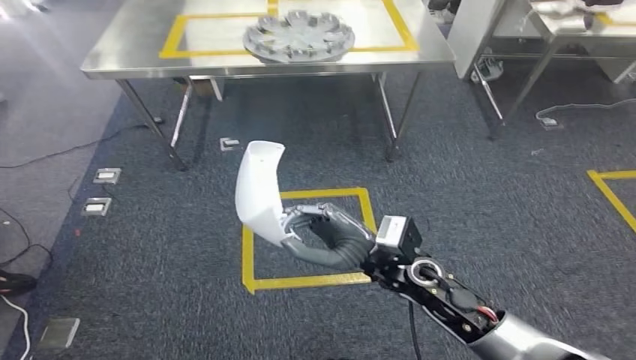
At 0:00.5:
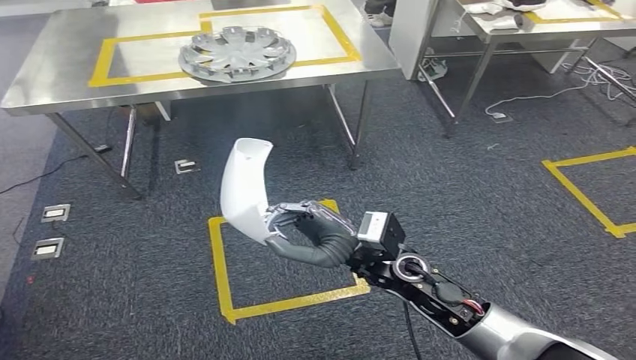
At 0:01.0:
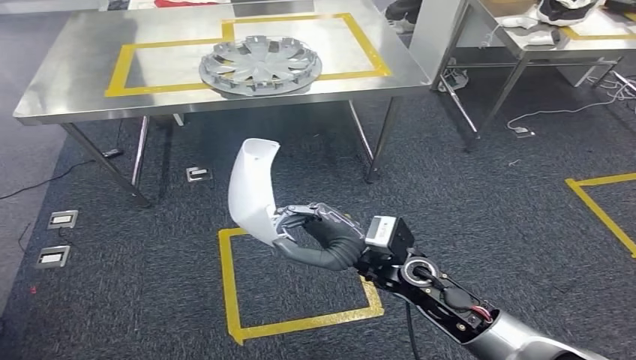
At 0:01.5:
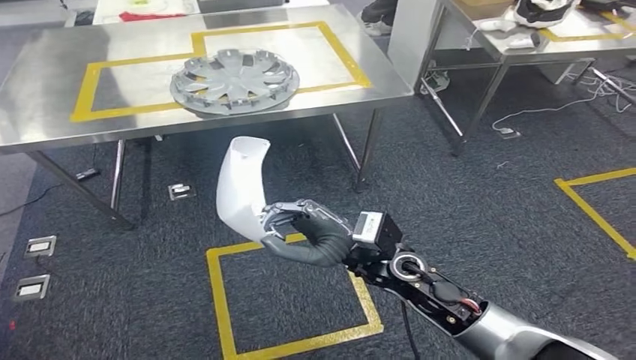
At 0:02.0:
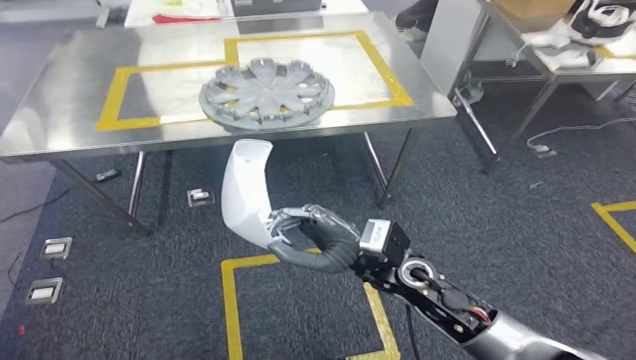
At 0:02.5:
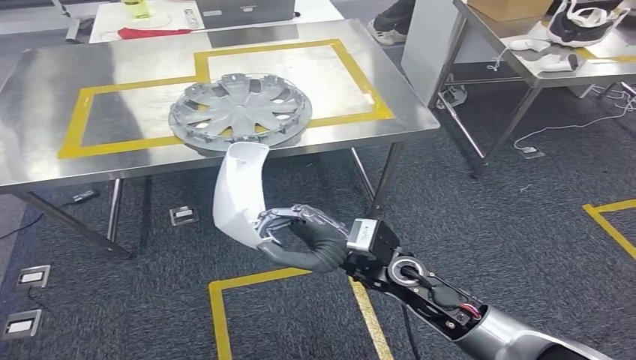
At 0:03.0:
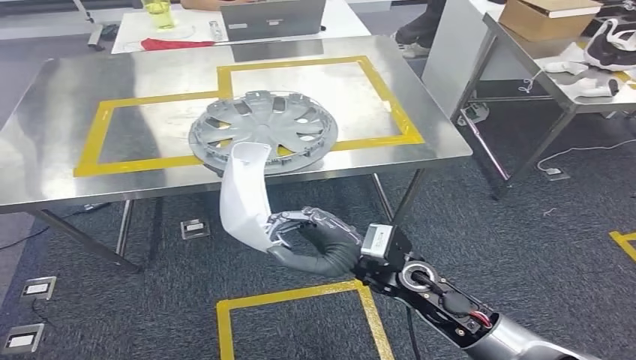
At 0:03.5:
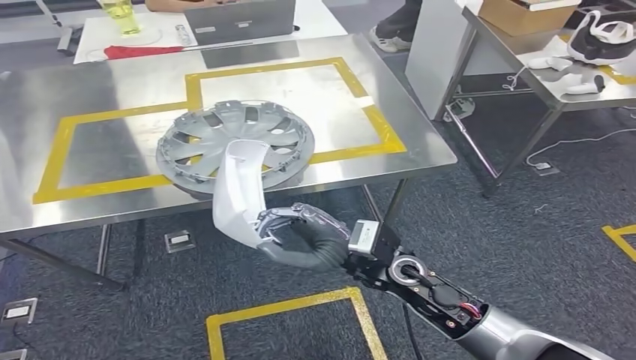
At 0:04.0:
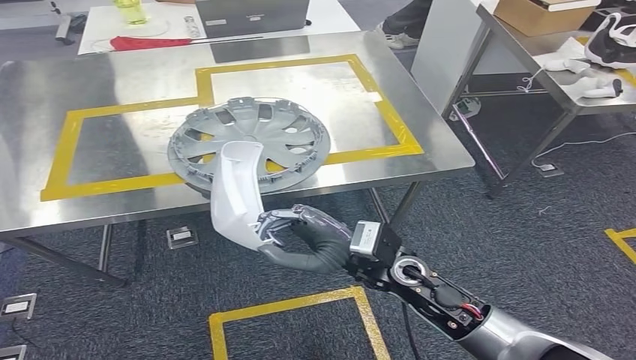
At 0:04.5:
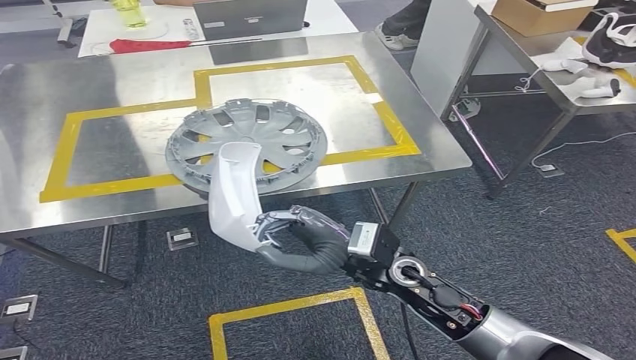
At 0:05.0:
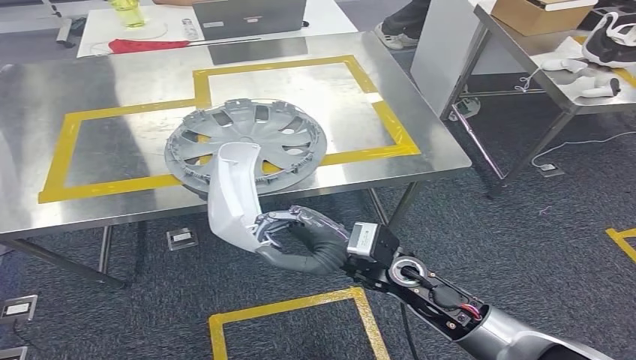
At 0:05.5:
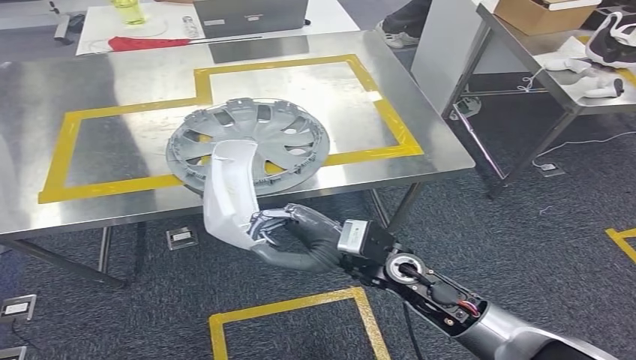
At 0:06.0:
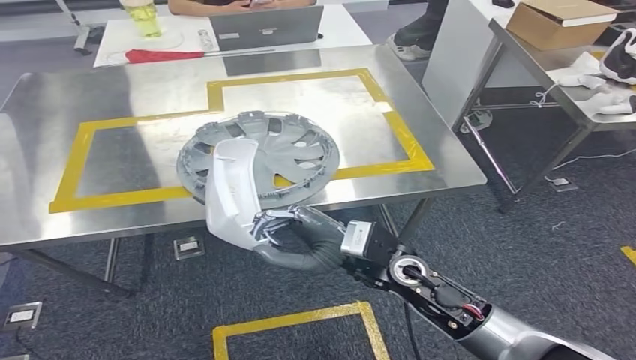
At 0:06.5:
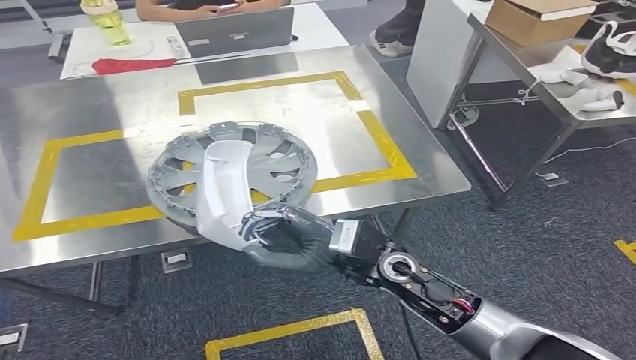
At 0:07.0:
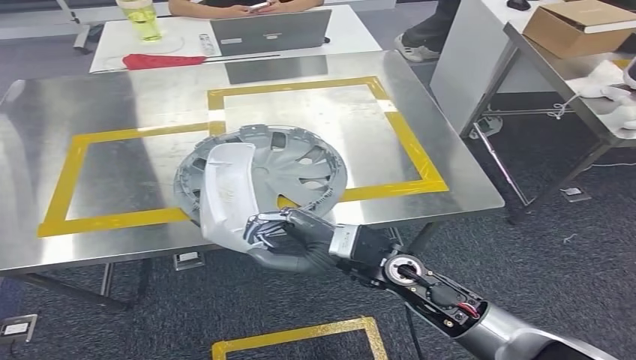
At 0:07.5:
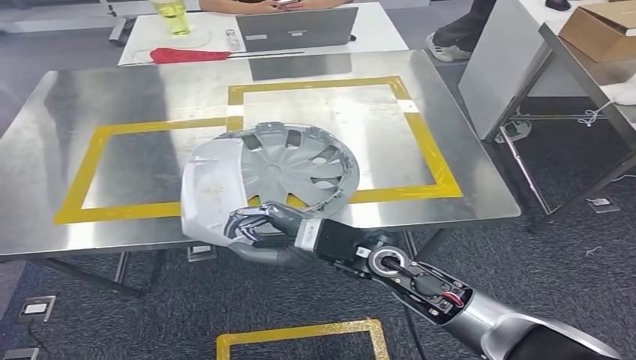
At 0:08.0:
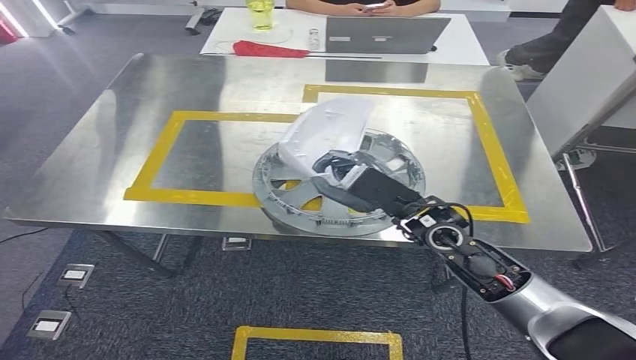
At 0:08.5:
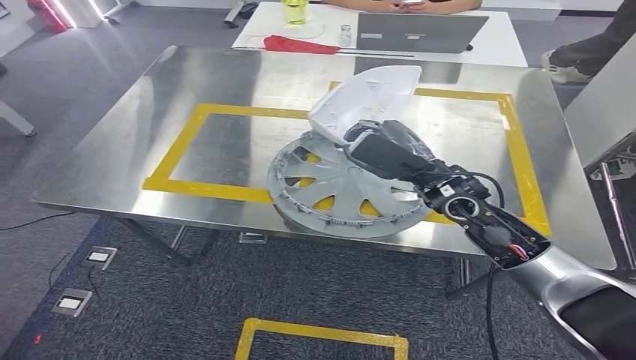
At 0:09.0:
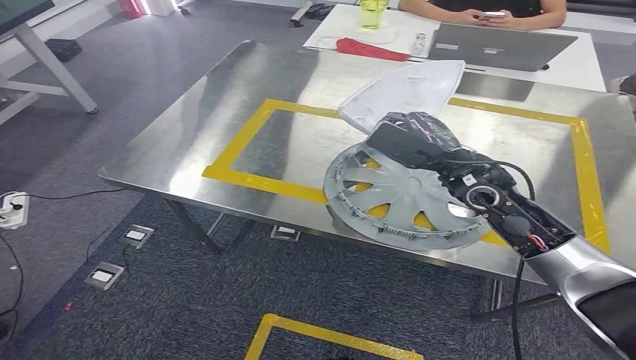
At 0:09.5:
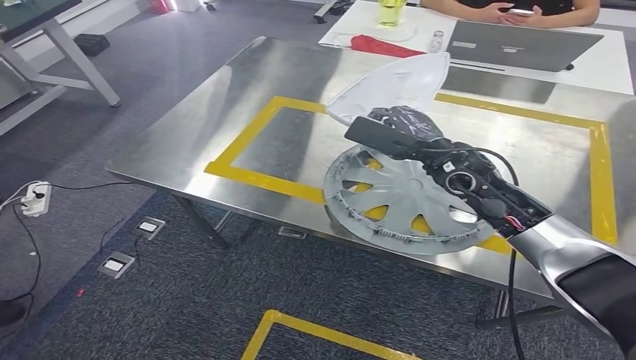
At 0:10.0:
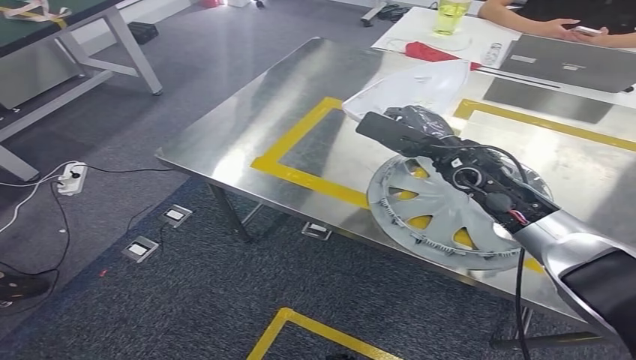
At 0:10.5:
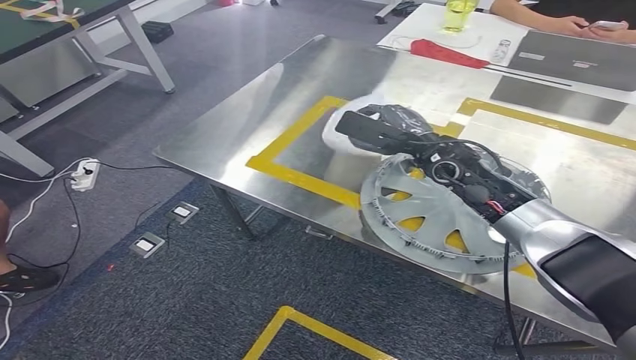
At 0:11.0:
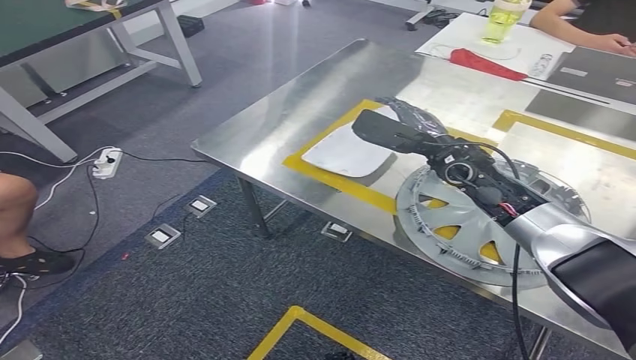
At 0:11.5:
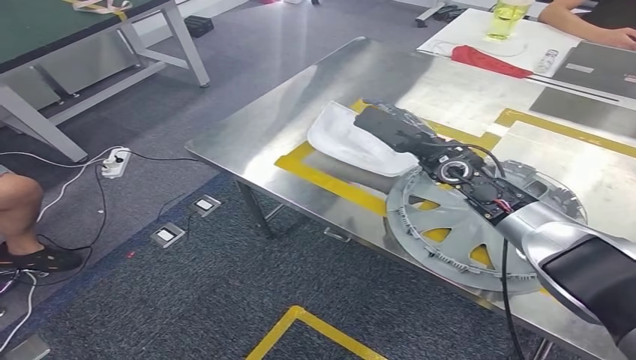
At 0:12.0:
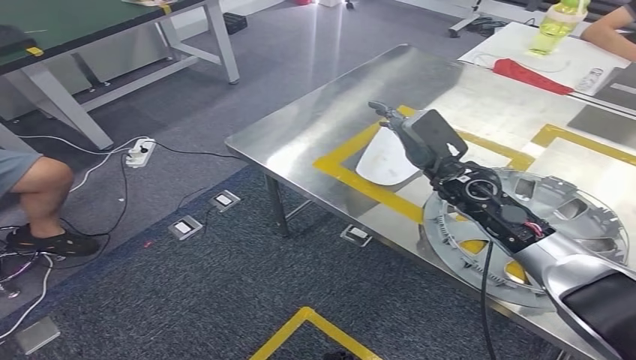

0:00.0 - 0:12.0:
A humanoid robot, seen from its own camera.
Step, 0:00.0 - 0:04.5: Move the small parts to the workbench.
Step, 0:05.0 - 0:11.5: Insert the small parts into the corresponding holes on the workbench.

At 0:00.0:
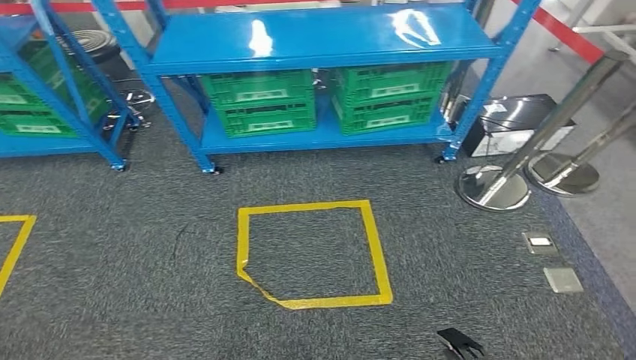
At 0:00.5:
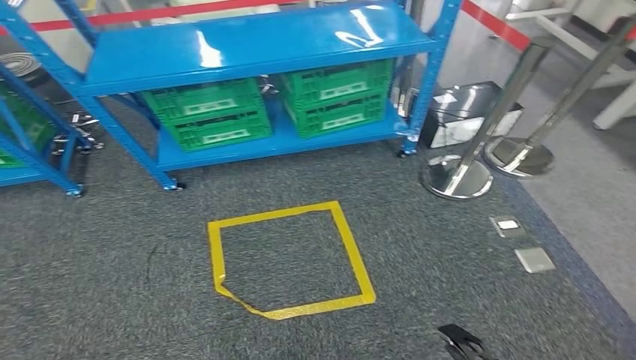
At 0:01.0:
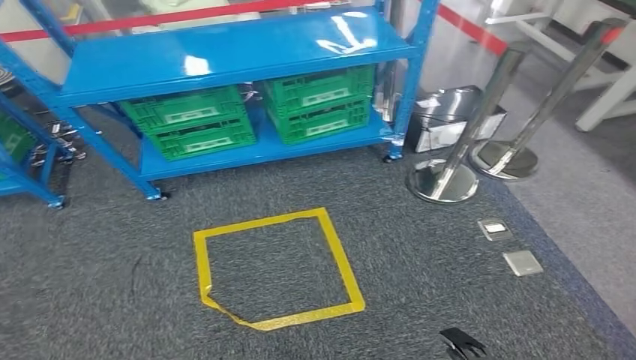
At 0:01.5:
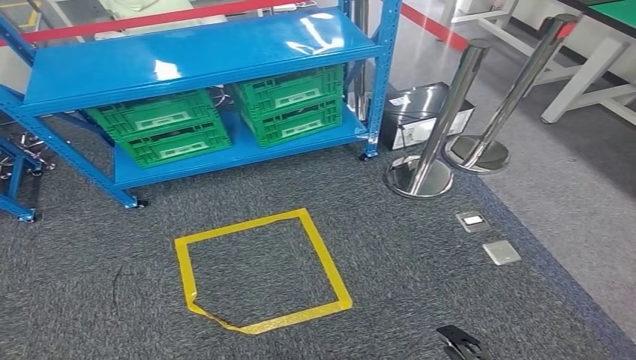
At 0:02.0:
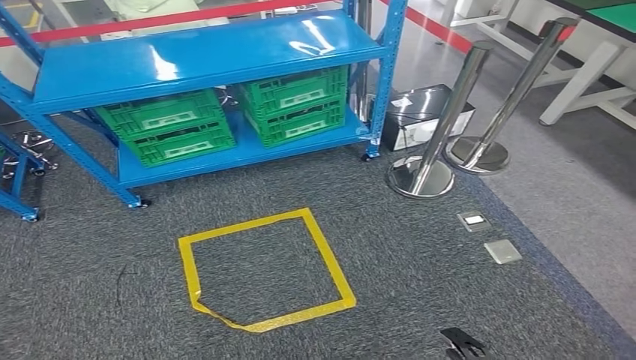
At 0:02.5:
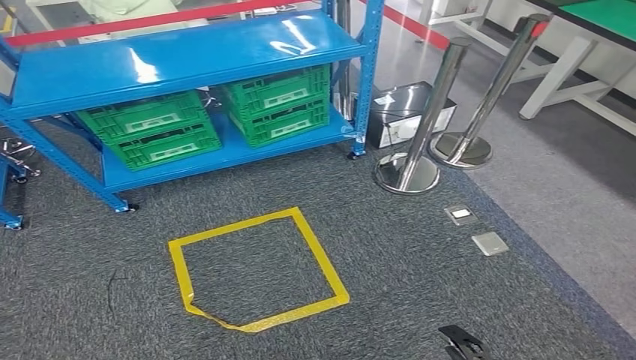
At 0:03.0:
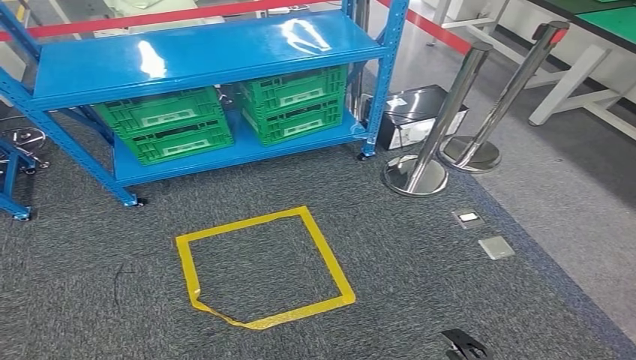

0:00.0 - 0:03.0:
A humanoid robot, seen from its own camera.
Step, 0:00.0 - 0:03.0: Move to the initial position at the workbench.
0:01.5 - 0:03.0: The two hands keep their place.
